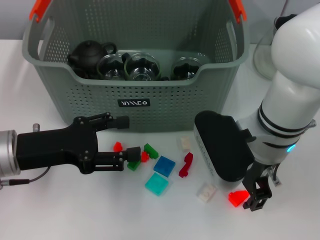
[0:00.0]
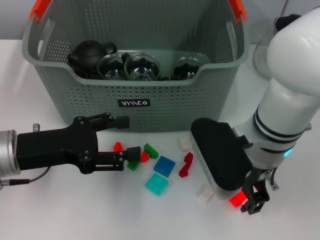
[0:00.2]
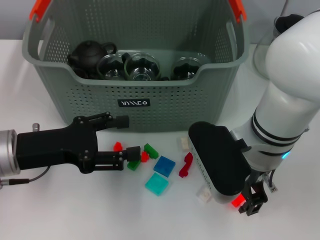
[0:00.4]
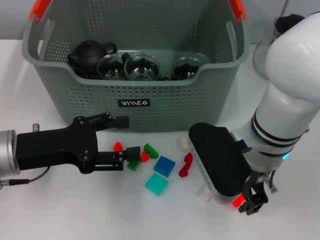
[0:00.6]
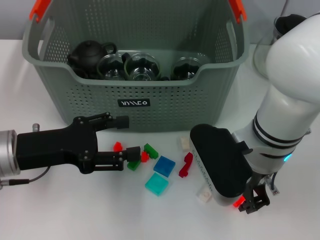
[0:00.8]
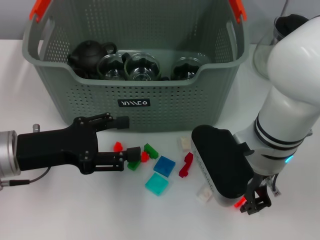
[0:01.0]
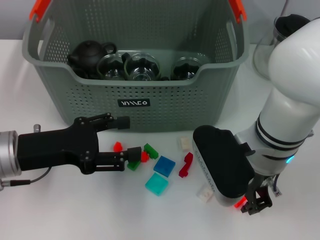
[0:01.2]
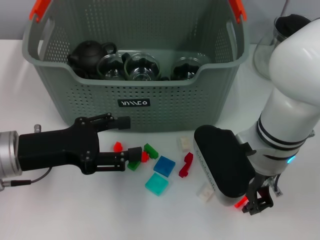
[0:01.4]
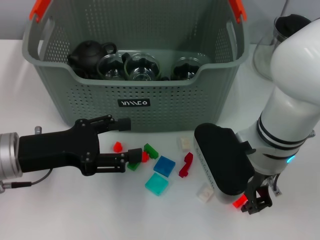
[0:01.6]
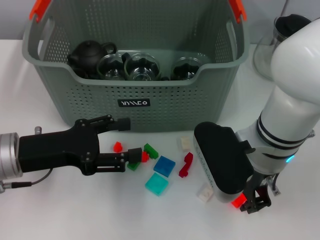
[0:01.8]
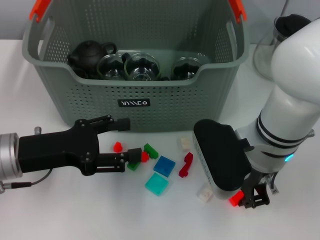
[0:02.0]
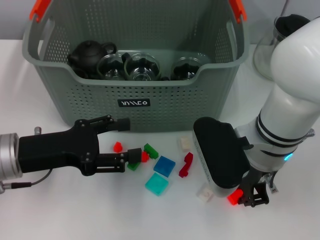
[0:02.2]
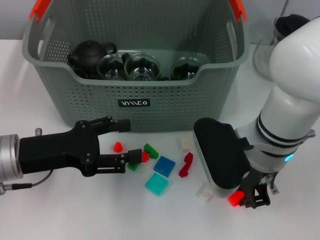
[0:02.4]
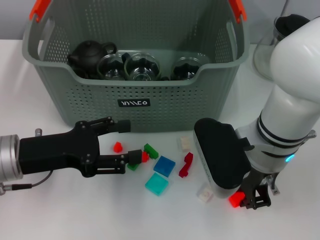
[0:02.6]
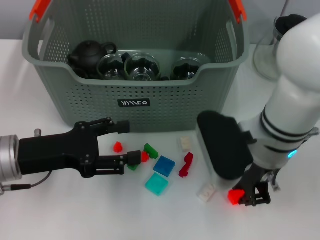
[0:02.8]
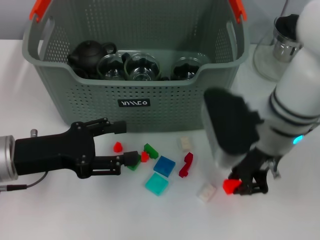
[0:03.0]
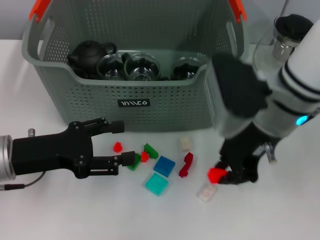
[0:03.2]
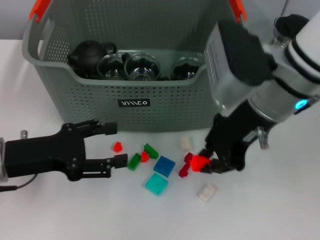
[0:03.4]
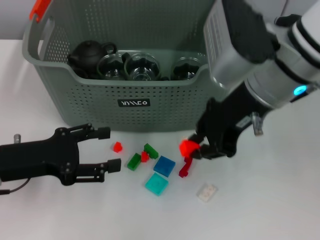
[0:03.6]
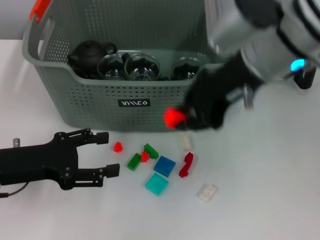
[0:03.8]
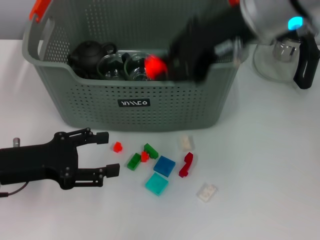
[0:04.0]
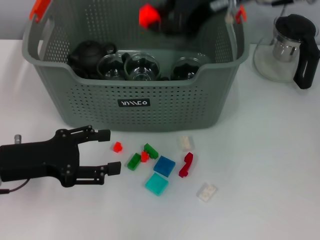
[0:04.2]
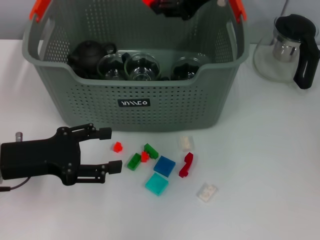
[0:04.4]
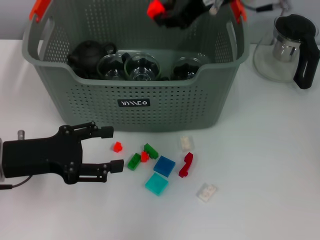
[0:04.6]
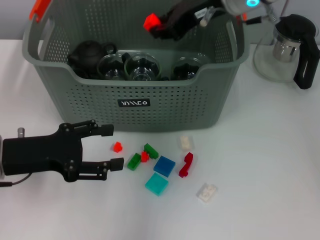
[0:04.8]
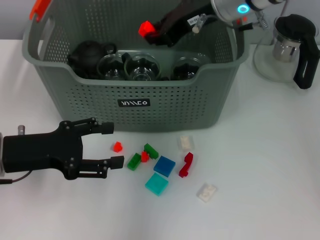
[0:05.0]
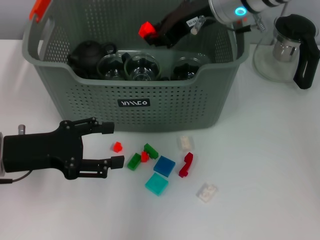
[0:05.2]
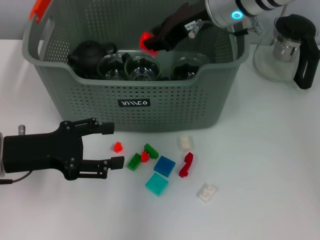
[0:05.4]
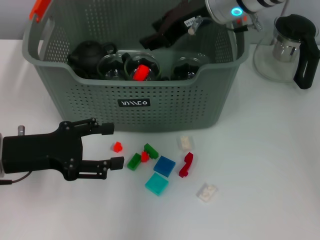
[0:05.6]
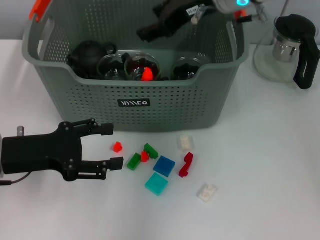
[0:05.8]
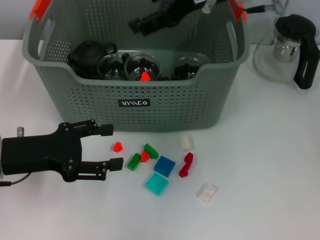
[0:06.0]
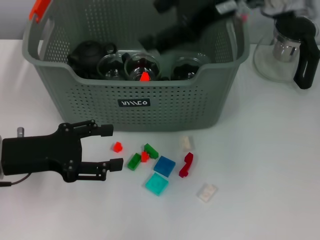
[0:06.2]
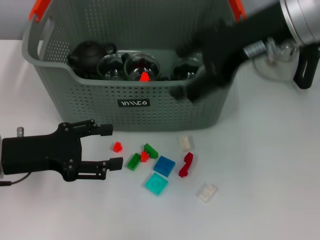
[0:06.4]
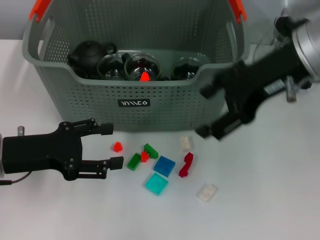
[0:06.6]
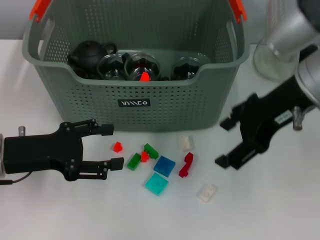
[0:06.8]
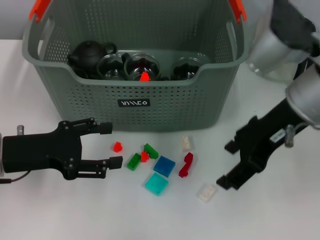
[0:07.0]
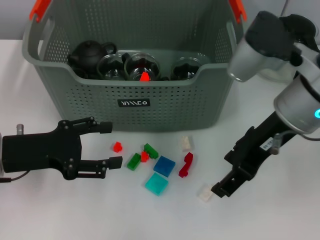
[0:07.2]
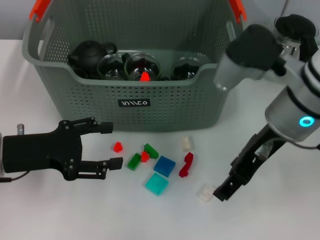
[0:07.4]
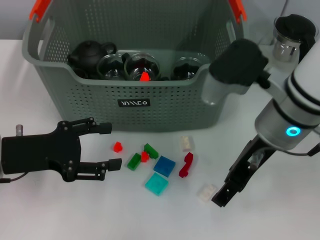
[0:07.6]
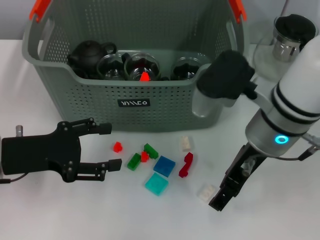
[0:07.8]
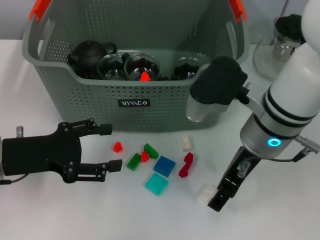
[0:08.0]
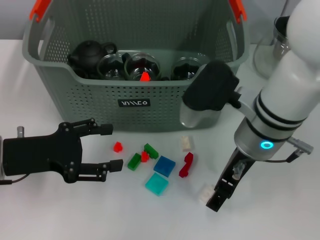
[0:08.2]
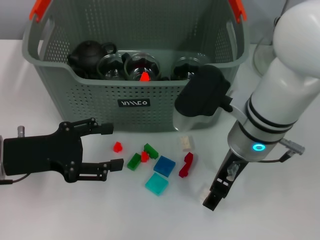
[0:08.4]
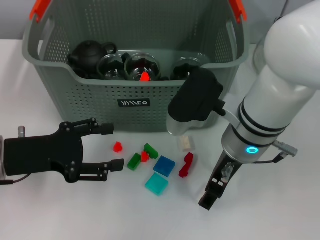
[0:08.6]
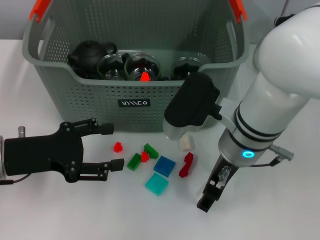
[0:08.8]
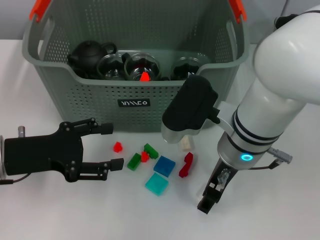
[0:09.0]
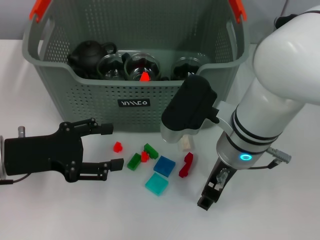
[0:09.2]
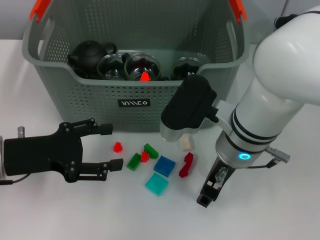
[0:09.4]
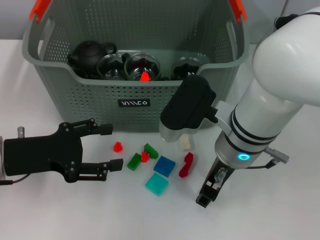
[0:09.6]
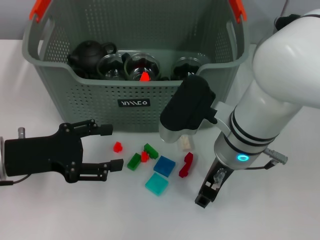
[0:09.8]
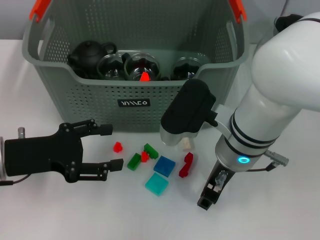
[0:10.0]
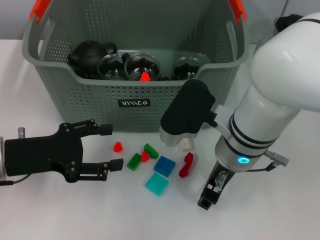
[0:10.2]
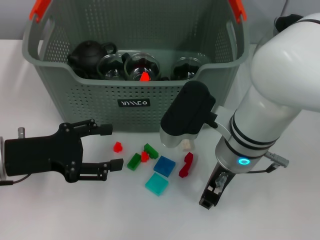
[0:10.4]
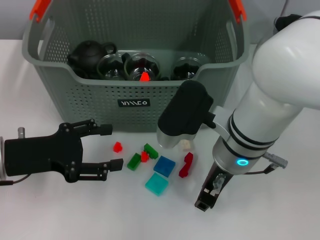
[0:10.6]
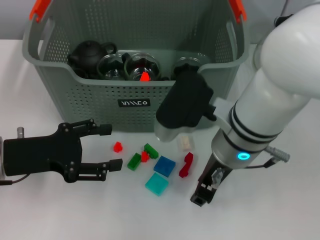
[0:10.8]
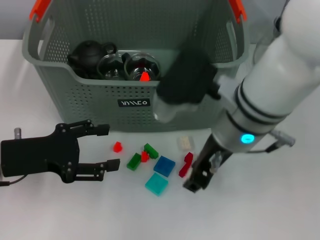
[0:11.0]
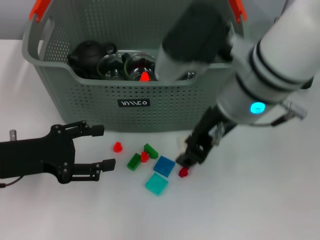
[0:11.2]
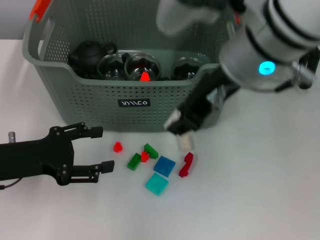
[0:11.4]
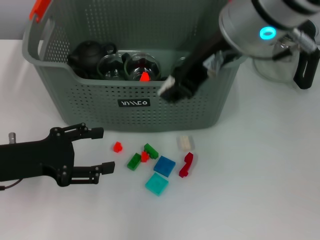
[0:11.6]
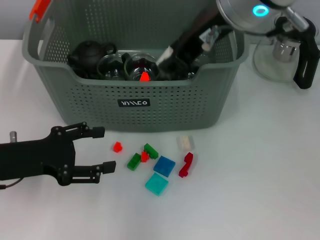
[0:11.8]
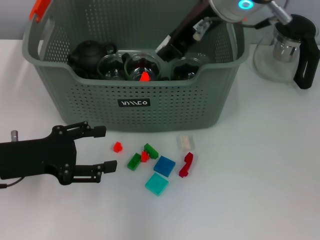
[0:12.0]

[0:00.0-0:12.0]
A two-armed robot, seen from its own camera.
Task of the whole recording: pick up the teacup on the table and place it into the storage bin, pick up the block on the table and place it into the storage bin.
Step, 0:00.0 to 0:02.4: Grasp the orange block with right gripper.
Step, 0:02.6 to 0:05.6: Place the orange block in the storage box with right gripper.
Step, 0:06.0 to 0:10.2: Grasp the white block with right gripper.
0:00.0 to 0:01.6: Neither gripper changes place.
0:01.6 to 0:03.0: The grippers stay close to where they were, moving slightly.
0:03.0 to 0:04.4: The right gripper is displaced upward and forward by approximately 15 cm.
0:04.4 to 0:06.0: The right gripper opens.
0:06.0 to 0:07.6: The right gripper shifts about 15 cm downward and backward.
0:07.6 to 0:09.0: The right gripper moves approximately 5 cm.
0:09.0 to 0:10.4: The right gripper closes up.
0:10.4 to 0:12.0: The right gripper shifts approximately 20 cm upward and forward.

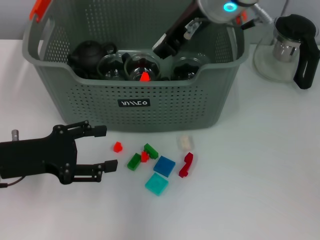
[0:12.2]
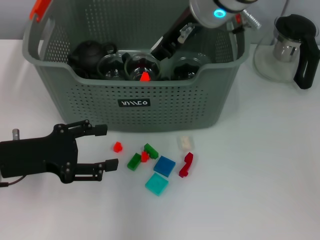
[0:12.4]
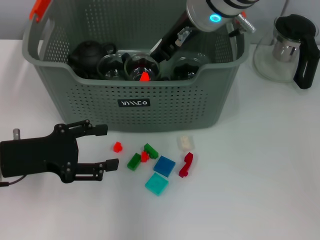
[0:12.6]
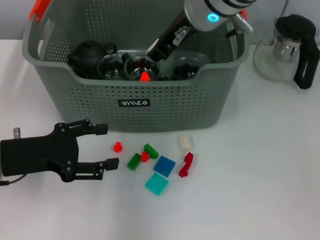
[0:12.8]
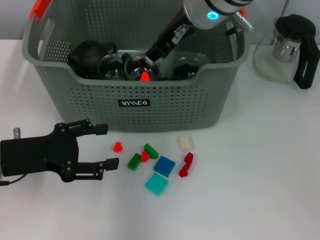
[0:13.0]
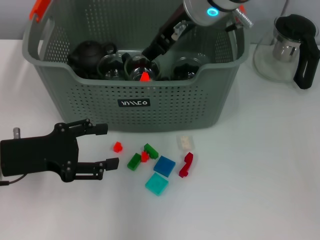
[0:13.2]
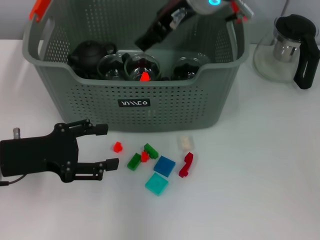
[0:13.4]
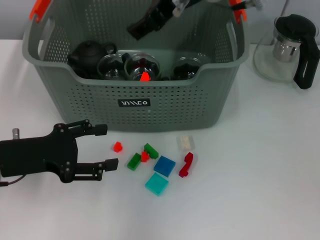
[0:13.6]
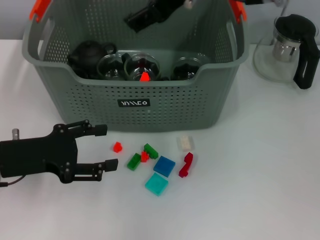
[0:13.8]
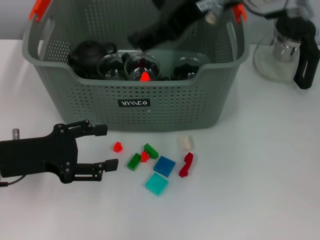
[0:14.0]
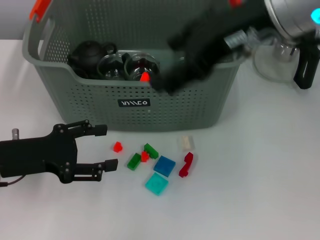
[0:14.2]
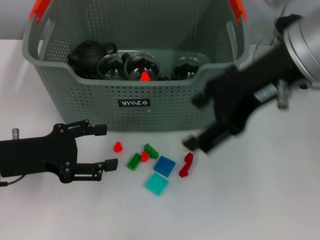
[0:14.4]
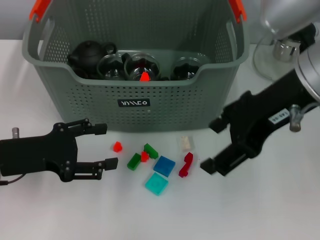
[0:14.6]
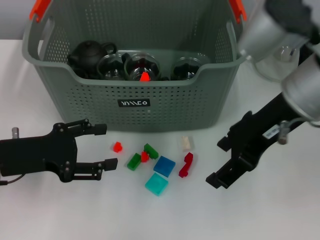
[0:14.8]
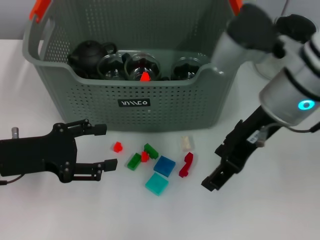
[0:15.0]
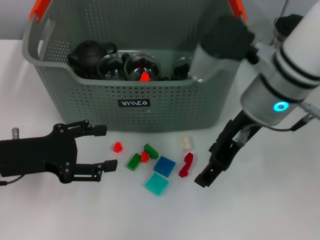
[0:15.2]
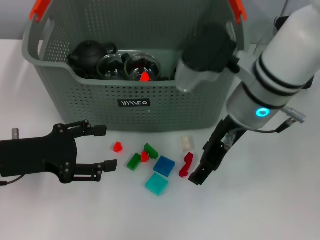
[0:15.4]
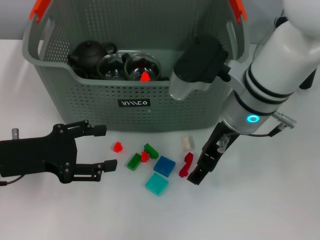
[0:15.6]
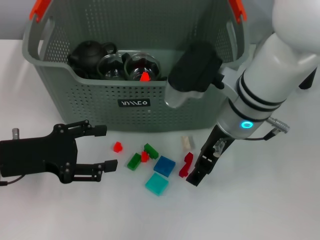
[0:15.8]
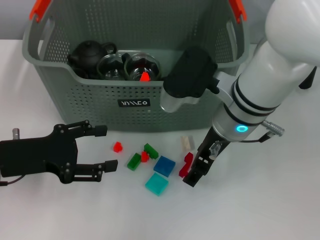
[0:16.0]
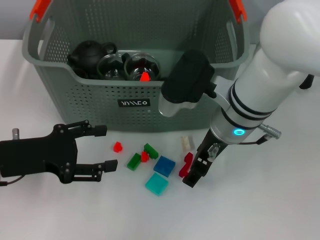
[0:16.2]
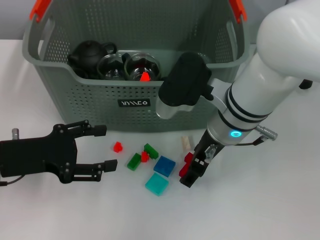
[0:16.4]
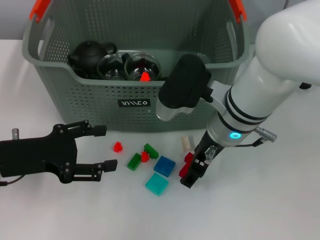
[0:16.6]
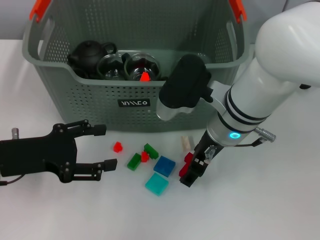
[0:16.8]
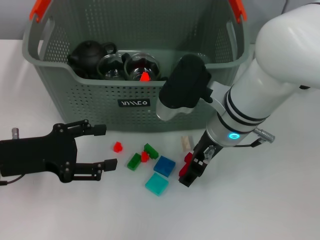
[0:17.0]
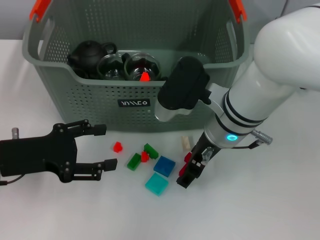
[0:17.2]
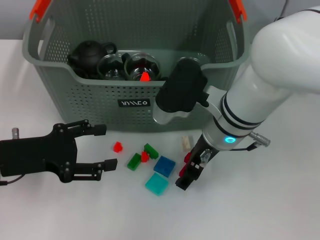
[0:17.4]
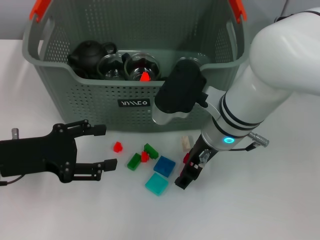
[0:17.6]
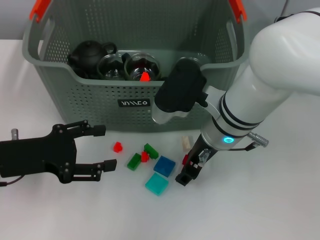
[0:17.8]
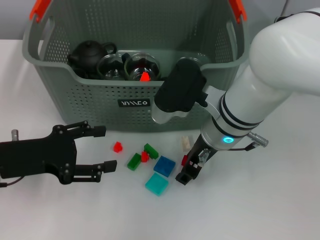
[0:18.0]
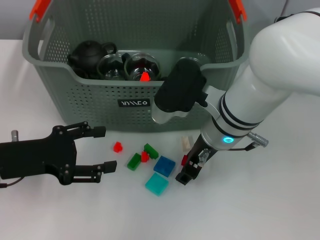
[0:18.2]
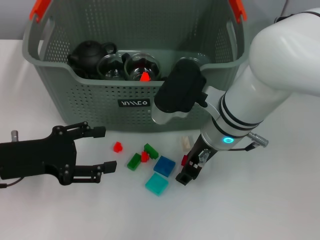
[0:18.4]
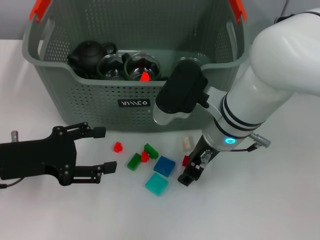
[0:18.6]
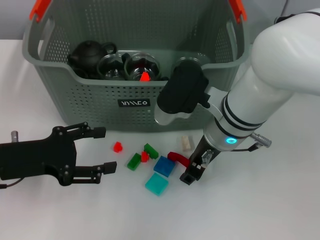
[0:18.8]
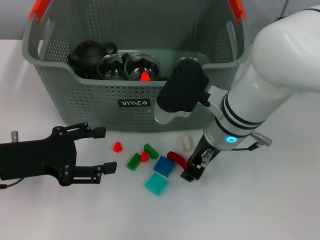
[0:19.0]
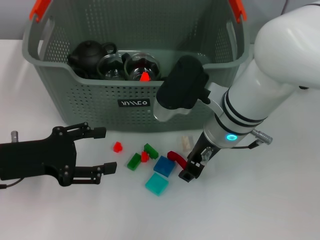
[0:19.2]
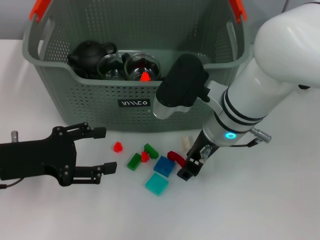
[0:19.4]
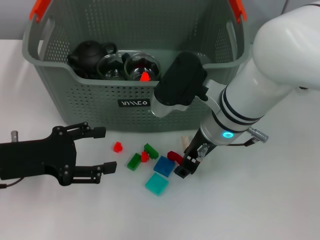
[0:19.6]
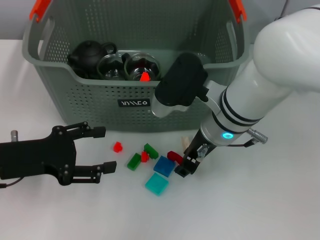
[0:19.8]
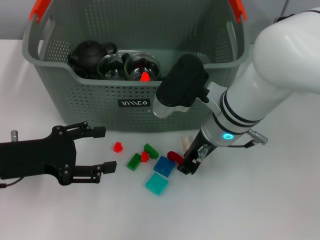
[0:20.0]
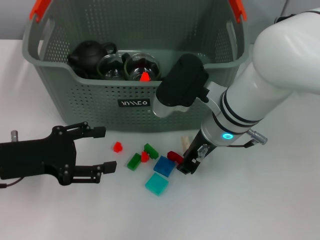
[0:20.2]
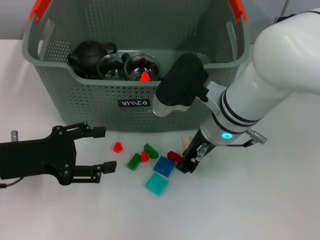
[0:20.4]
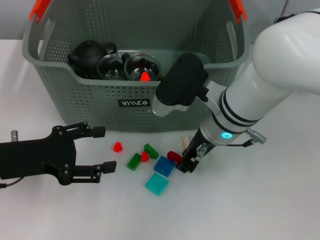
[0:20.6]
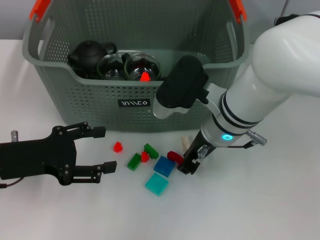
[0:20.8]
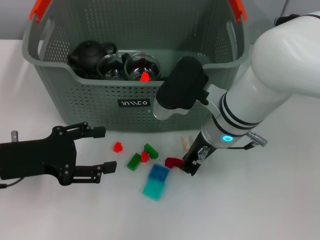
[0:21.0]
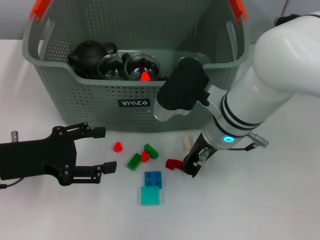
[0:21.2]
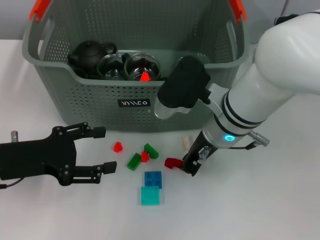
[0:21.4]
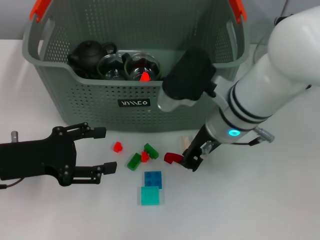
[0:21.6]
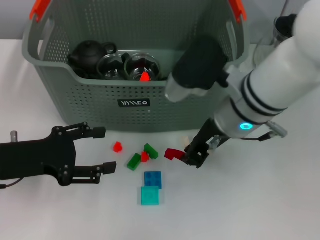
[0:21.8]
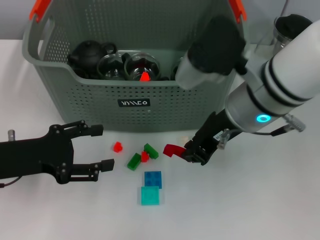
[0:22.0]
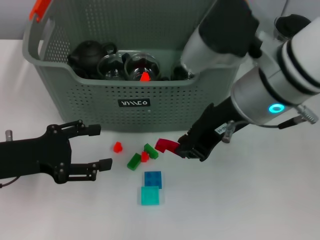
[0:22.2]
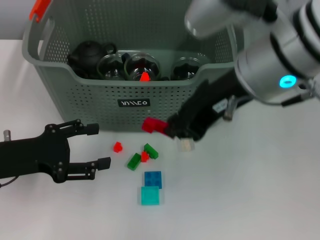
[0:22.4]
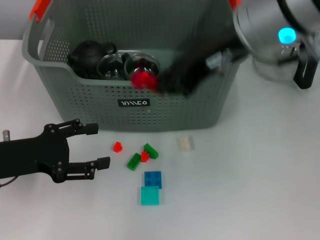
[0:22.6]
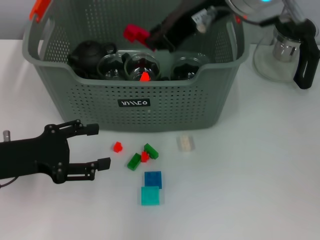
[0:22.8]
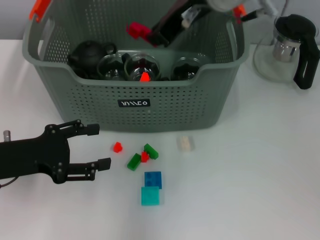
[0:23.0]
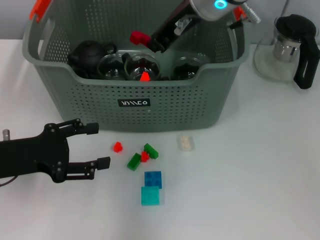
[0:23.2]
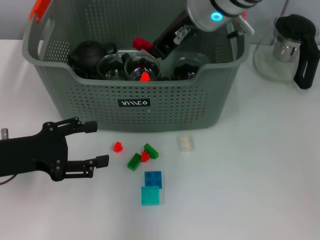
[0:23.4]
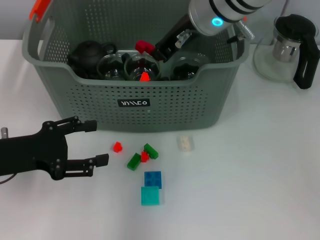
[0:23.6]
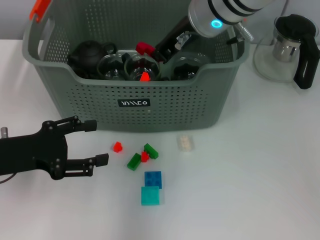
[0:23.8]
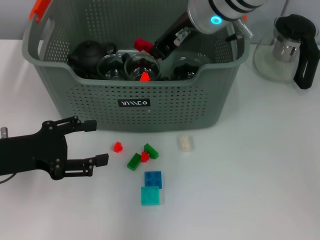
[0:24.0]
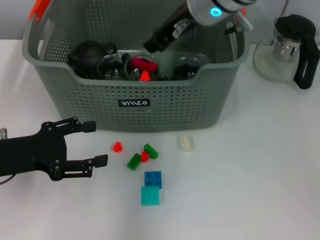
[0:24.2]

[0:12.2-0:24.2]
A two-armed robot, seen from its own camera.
Task of the whole recording: pick up the teacup on the table and place it into the storage bin, pick up the block on the table and place it into the storage bin.
Step, 0:13.8 to 0:21.4: Grasp the red block with right gripper.
0:12.2 to 0:13.8: The right gripper ends up approximately 5 cm from where it was, and opens up.
0:13.8 to 0:15.2: The right gripper travels downward by roughly 10 cm.
0:15.2 to 0:16.6: The right gripper shifts roughly 5 cm downward.
0:16.6 to 0:19.8: Neither gripper changes place.
0:19.8 to 0:21.2: The right gripper closes.
0:21.2 to 0:22.6: The right gripper shifts some 20 cm upward.
0:22.6 to 0:24.2: The right gripper shifts approximately 10 cm forward and downward.
